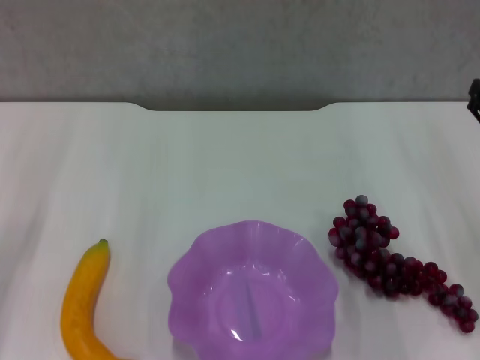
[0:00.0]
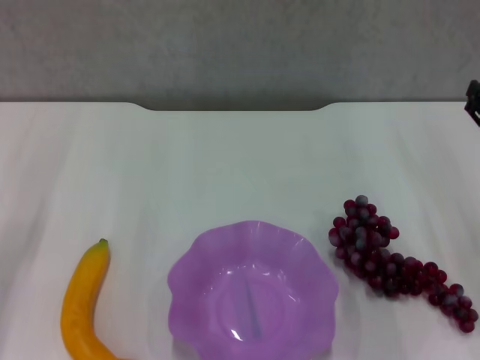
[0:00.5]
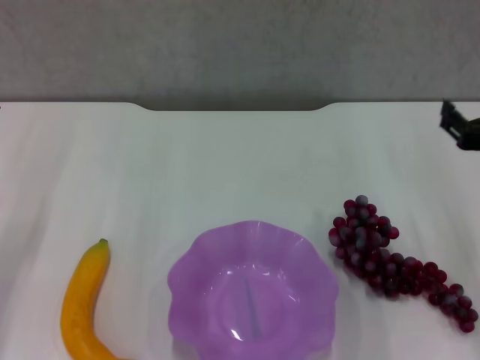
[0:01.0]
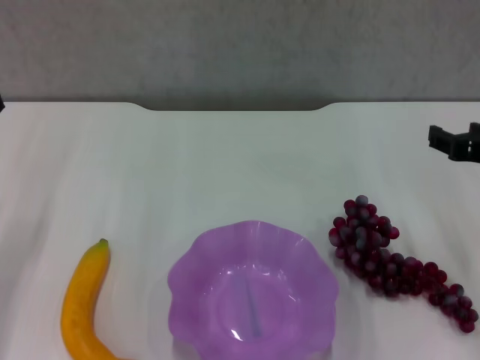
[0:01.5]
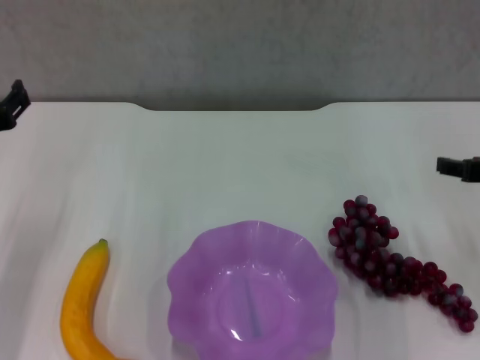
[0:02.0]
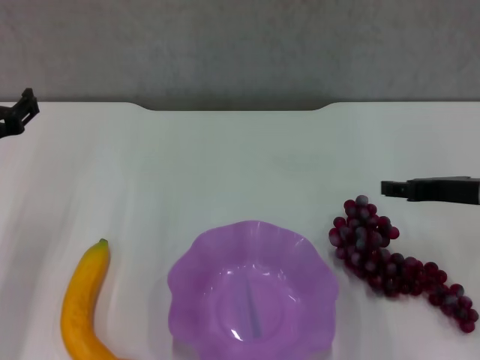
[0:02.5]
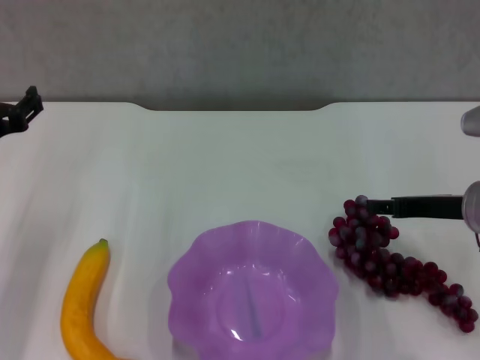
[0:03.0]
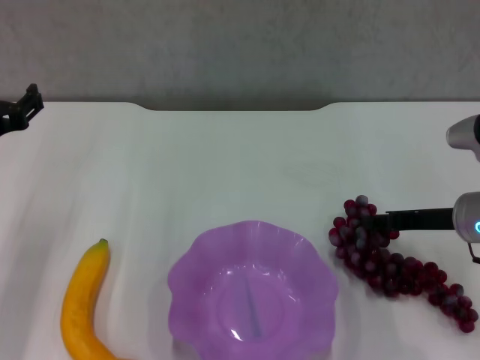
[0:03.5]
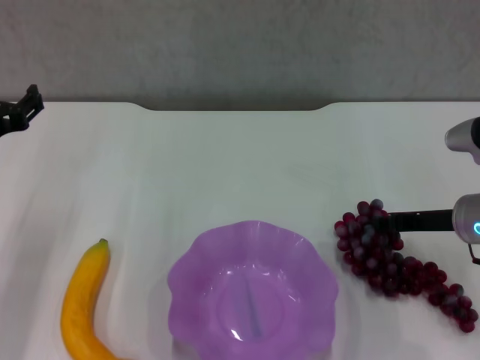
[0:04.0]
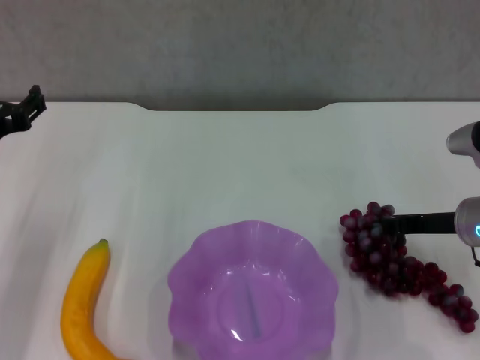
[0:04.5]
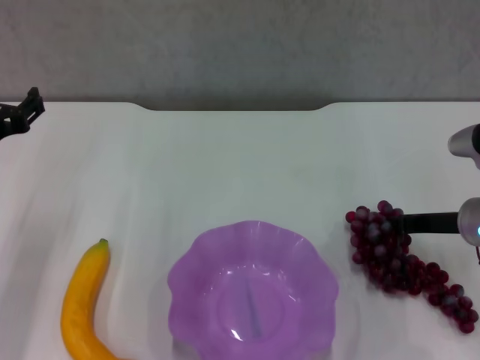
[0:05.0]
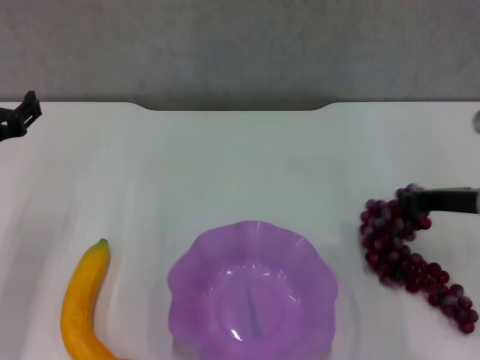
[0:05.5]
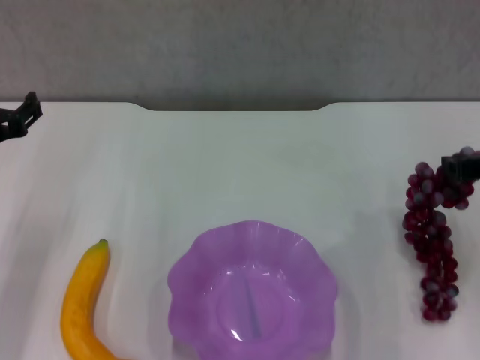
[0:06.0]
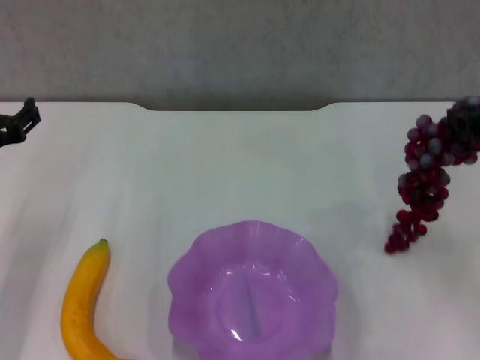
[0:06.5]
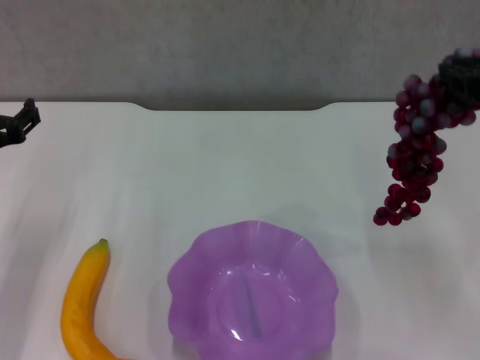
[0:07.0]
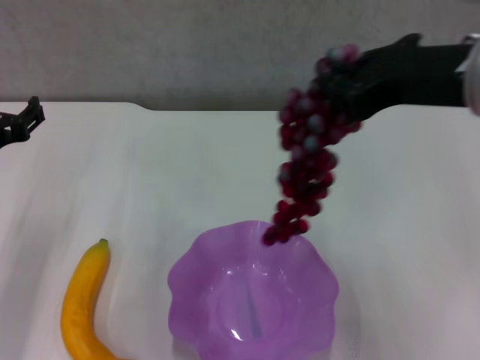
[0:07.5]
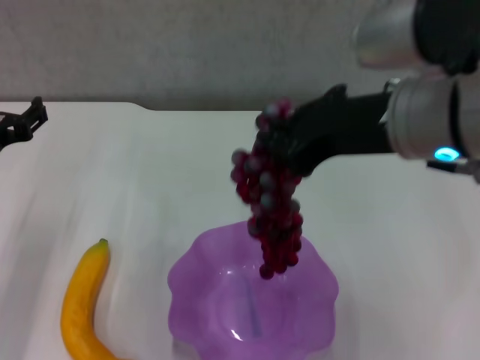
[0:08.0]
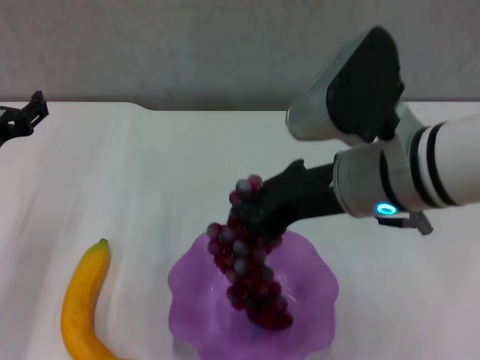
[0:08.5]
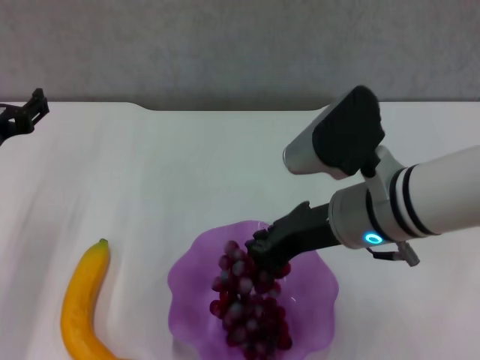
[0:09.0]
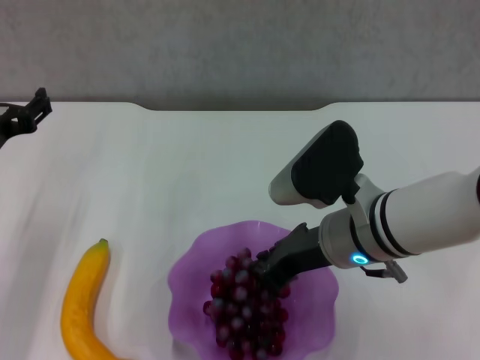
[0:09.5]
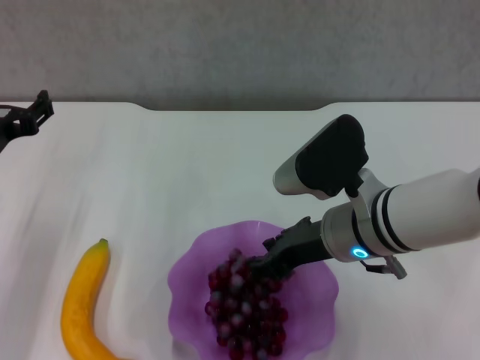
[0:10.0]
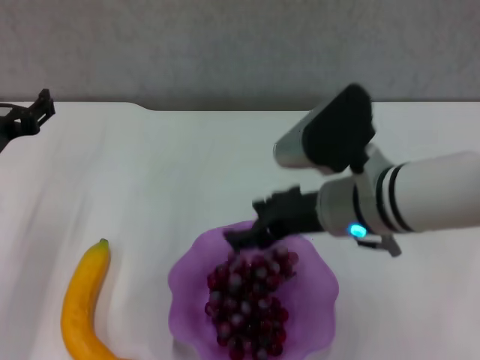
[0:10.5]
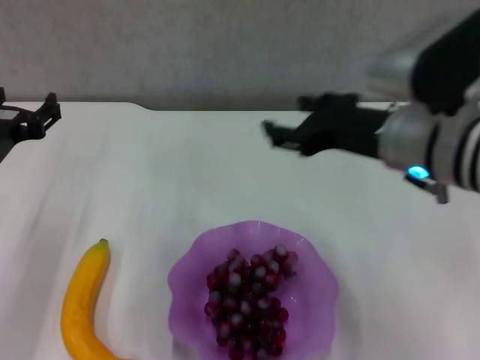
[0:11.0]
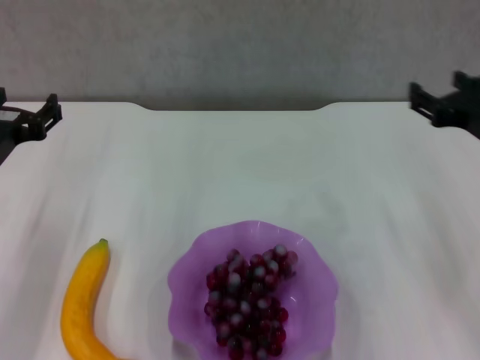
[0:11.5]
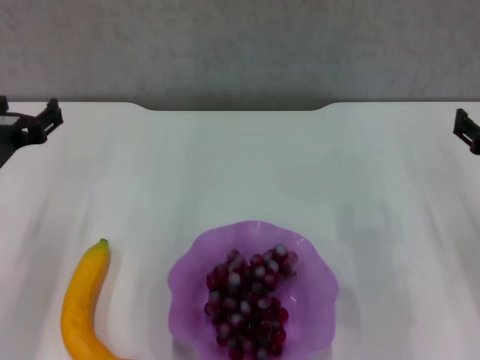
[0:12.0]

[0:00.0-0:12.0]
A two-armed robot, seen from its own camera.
Step, 0:00.0 to 0:05.0: Grasp the grape with right gripper.
Step, 0:05.5 to 0:10.5: Place the grape in the purple plate with right gripper.
0:02.0 to 0:04.0: The right gripper goes about 5 cm downward.
0:04.0 to 0:06.0: The right gripper moves upward, some 10 cm, and closes.
0:06.0 to 0:08.0: The right gripper is displaced to the left and upward by roughly 20 cm.
0:08.0 to 0:10.0: The right gripper goes approximately 15 cm downward.
0:10.0 to 0:12.0: The right gripper goes some 20 cm to the right, and opens up.

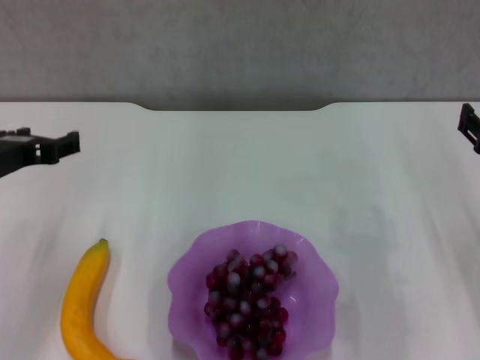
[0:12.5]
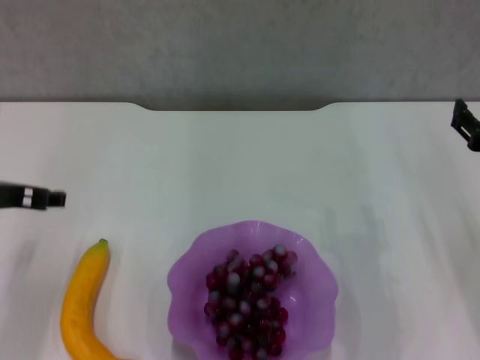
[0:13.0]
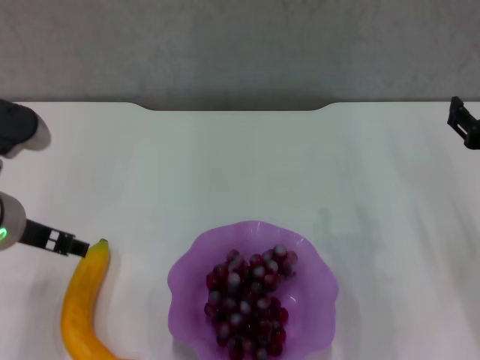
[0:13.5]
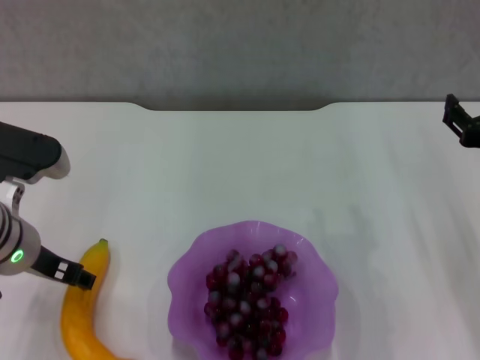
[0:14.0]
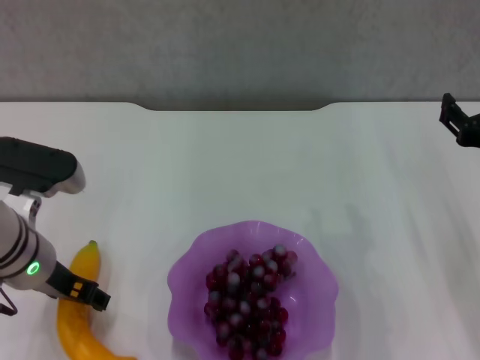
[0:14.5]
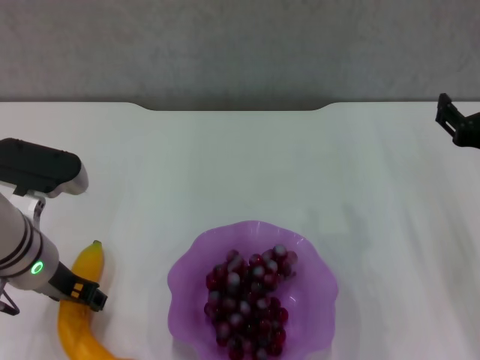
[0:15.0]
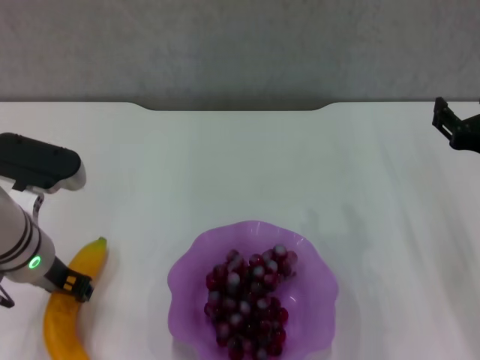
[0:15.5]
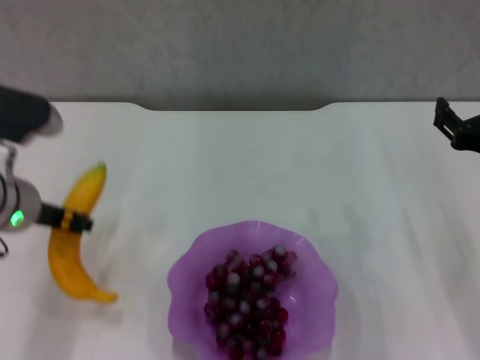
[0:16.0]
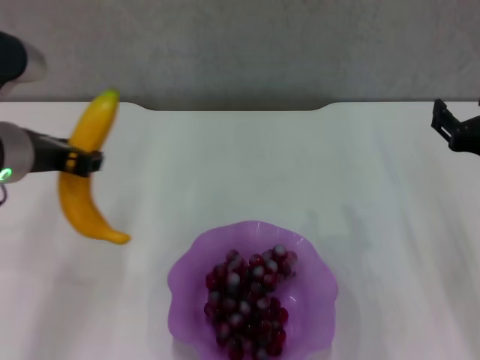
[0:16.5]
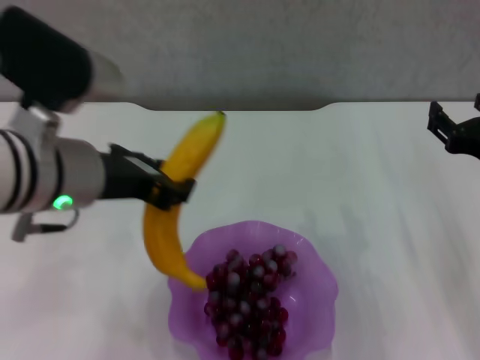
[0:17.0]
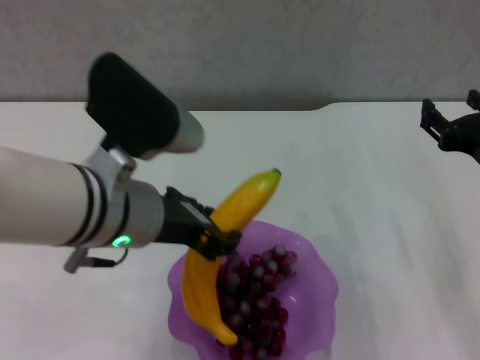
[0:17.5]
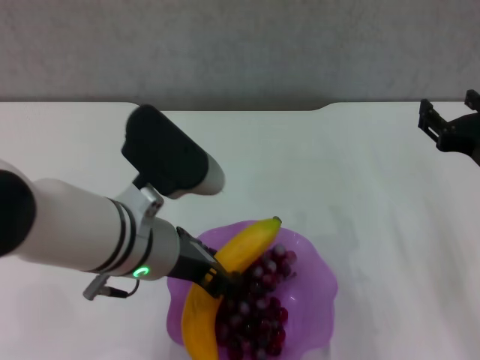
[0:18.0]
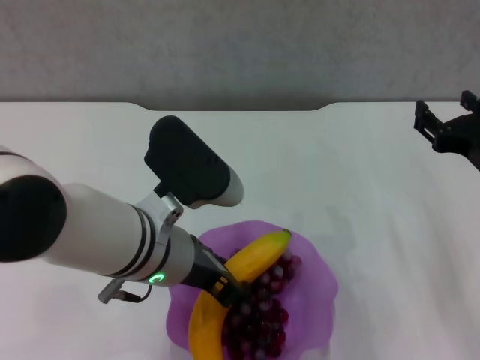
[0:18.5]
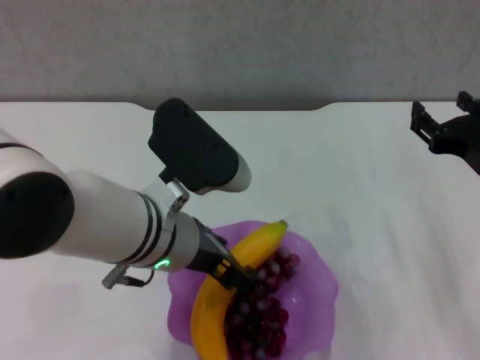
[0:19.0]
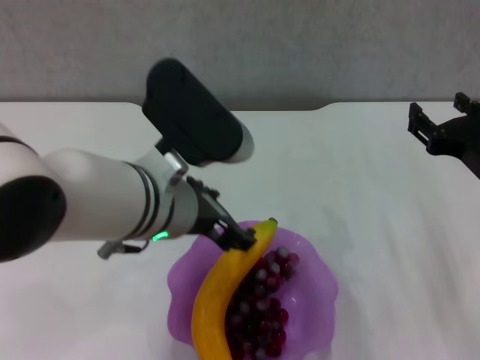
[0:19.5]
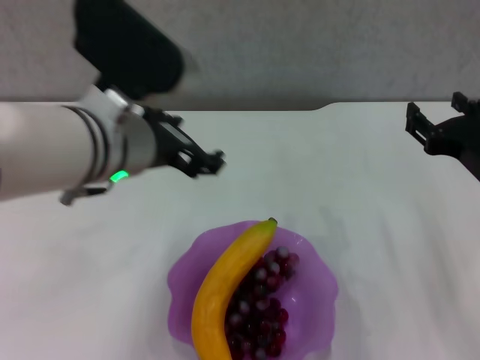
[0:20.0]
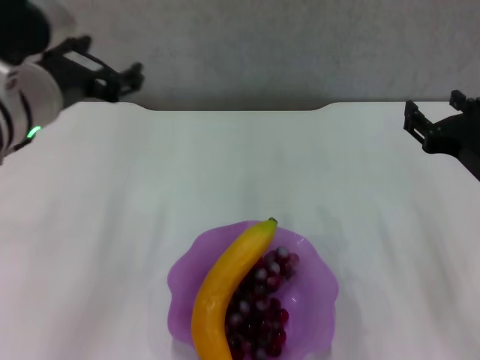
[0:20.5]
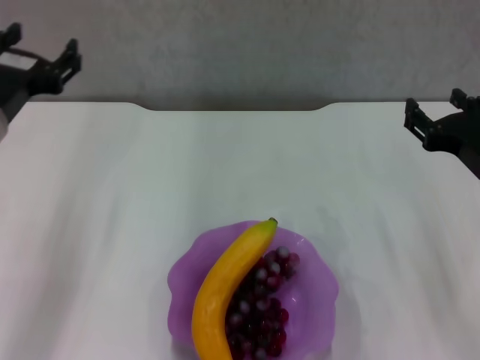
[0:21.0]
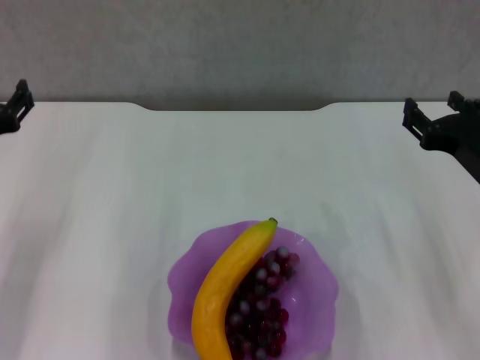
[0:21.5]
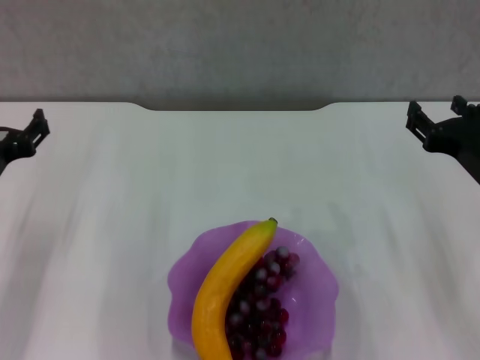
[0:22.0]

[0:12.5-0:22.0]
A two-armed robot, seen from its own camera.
Step, 0:12.5 to 0:15.0: Grasp the banana with left gripper.
Step, 0:15.5 to 0:19.0: Place the banana in the purple plate with left gripper.
0:12.5 to 0:14.5: The left gripper shifts approximately 5 cm downward.
0:14.5 to 0:16.5: The left gripper shifts approximately 10 cm upward, and closes up.
0:16.5 to 0:18.0: The left gripper shifts approximately 10 cm to the right.
0:18.0 to 0:20.0: The left gripper is displaced upward by approximately 5 cm, and opens up.
0:20.0 to 0:22.0: The left gripper heads to the left and downward, covering about 20 cm.

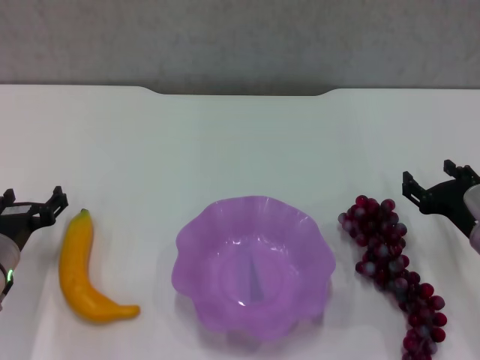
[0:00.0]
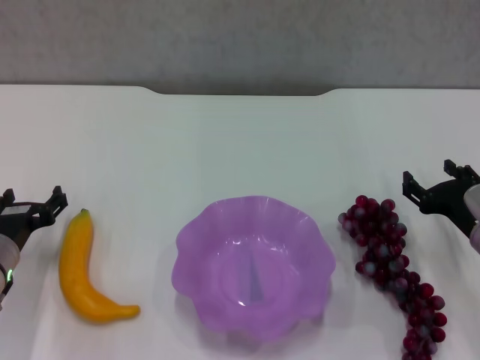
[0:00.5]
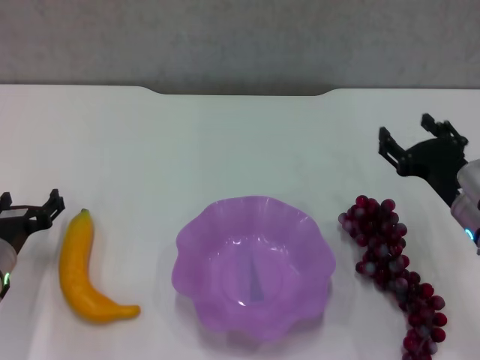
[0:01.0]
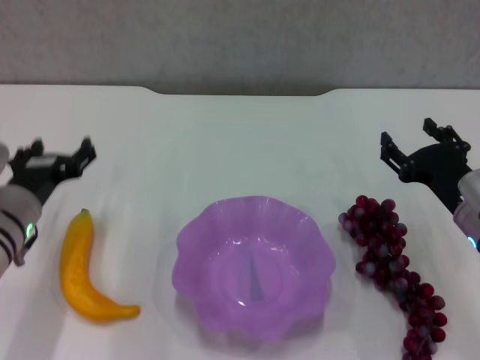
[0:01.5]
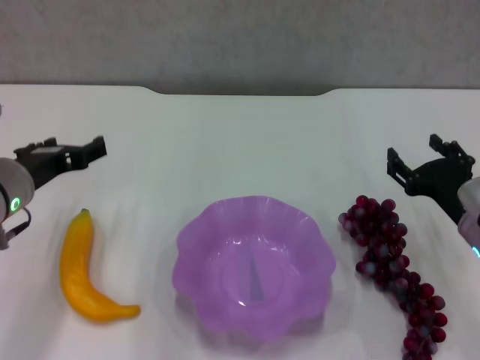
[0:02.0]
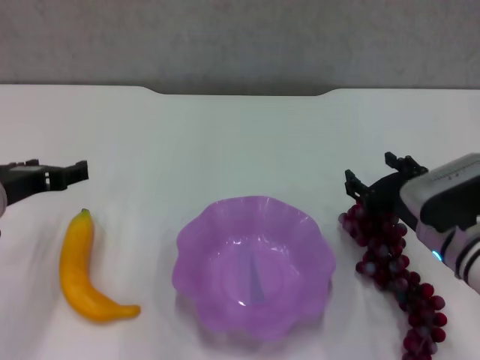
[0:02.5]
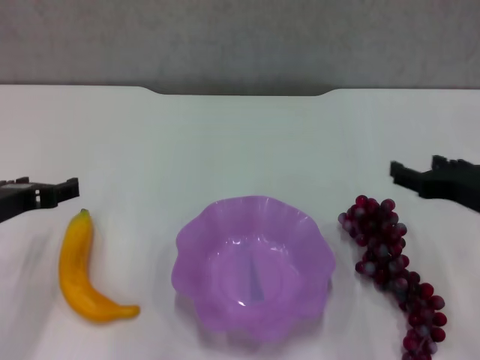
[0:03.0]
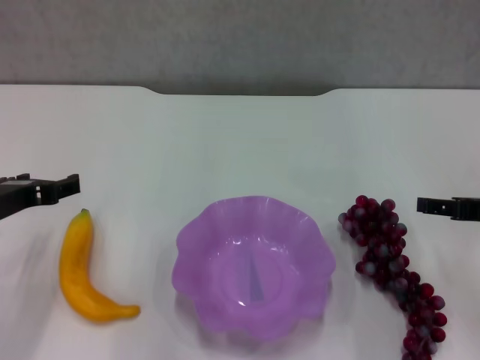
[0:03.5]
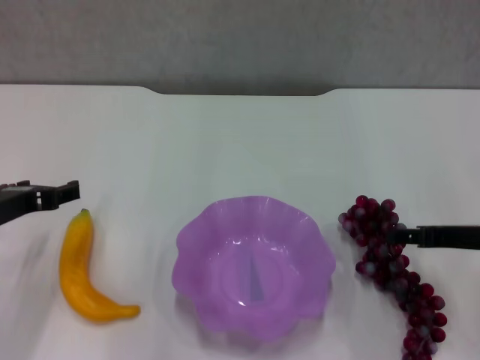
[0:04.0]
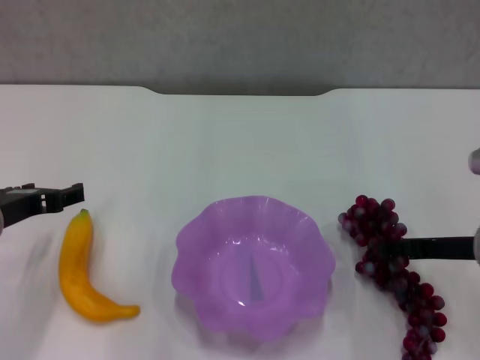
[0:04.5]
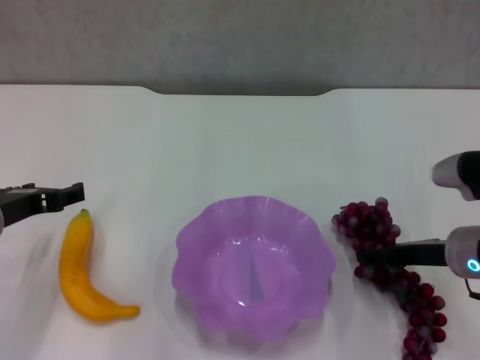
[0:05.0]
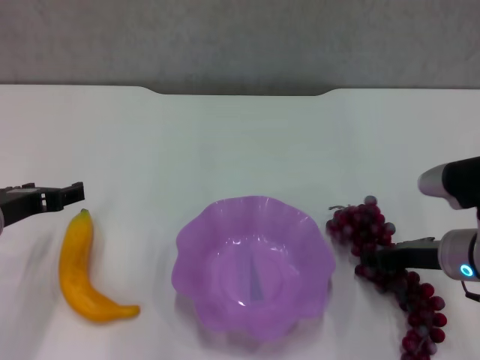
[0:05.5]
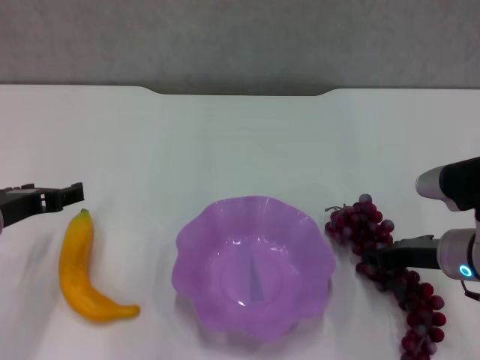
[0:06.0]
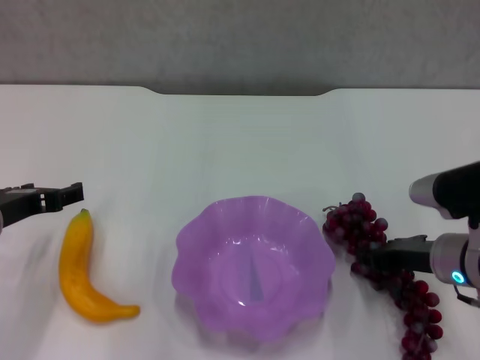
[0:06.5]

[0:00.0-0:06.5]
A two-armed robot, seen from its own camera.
Step, 0:00.0 to 0:06.0: Grasp the grape with right gripper.
0:00.0 to 0:02.0: The left gripper heads upward, covering about 10 cm.
0:04.5 to 0:06.5: The right gripper shifts by about 5 cm, and closes its fingers.
